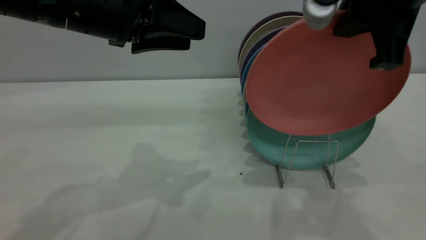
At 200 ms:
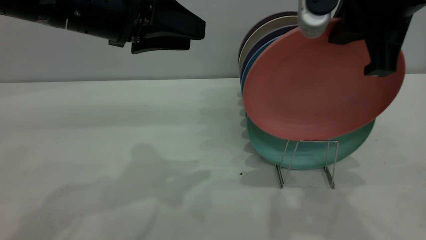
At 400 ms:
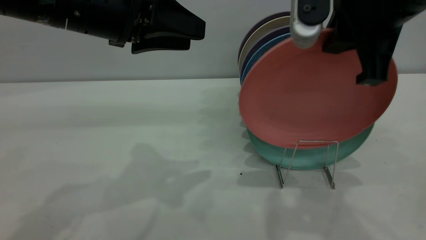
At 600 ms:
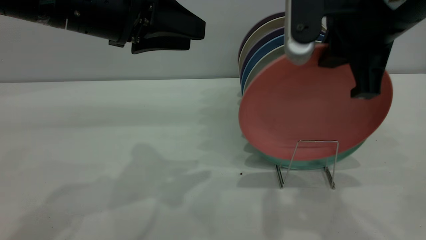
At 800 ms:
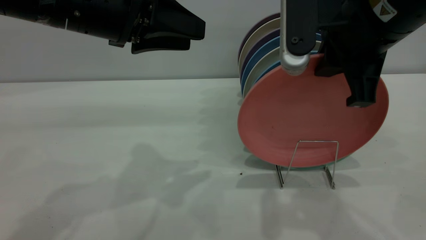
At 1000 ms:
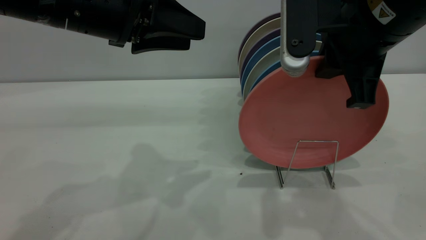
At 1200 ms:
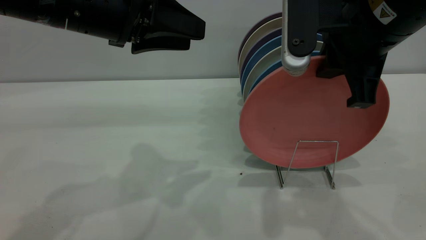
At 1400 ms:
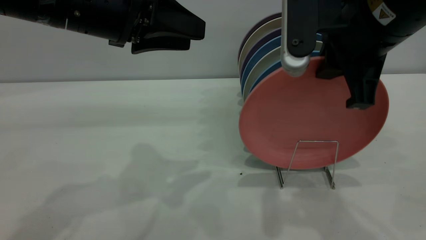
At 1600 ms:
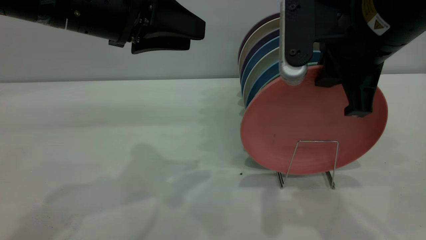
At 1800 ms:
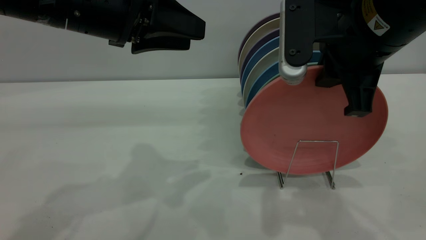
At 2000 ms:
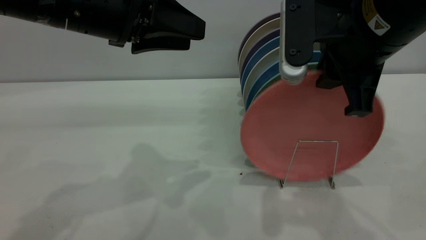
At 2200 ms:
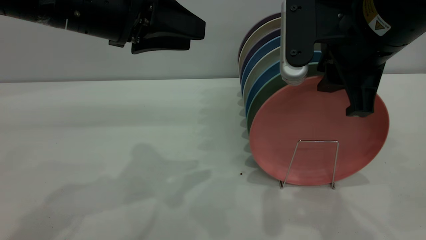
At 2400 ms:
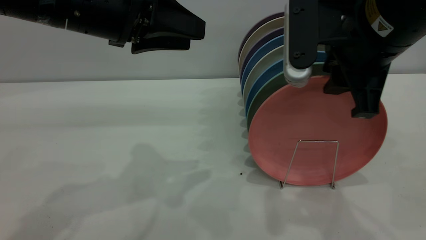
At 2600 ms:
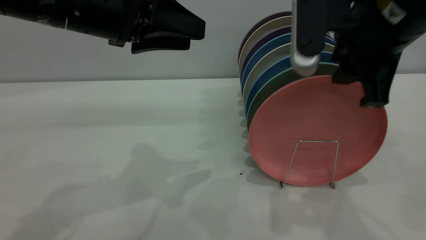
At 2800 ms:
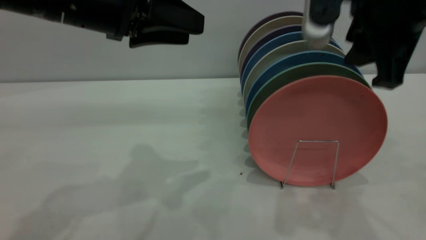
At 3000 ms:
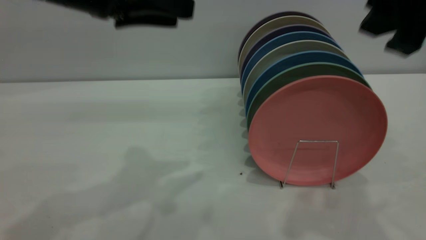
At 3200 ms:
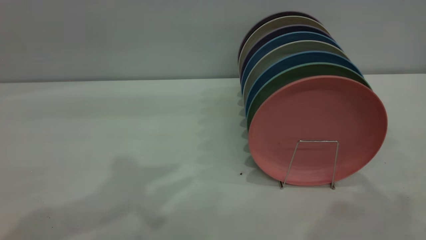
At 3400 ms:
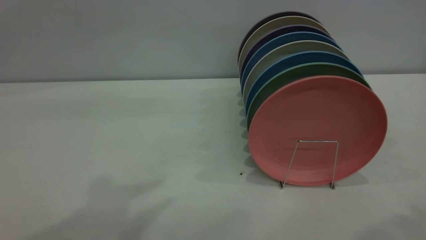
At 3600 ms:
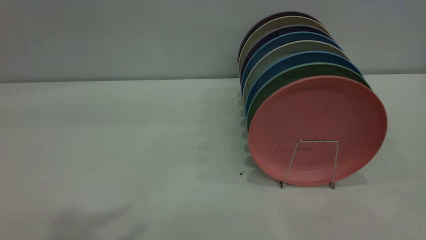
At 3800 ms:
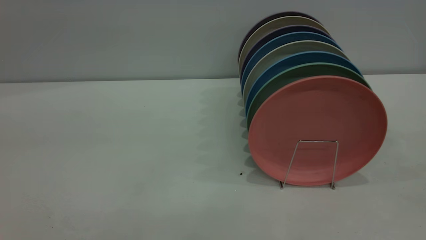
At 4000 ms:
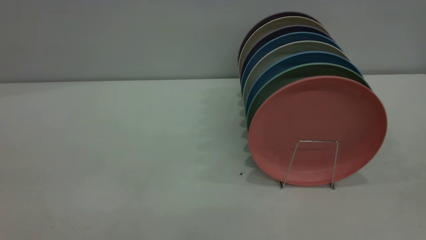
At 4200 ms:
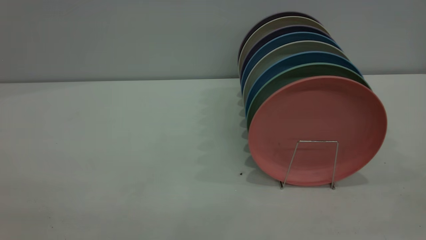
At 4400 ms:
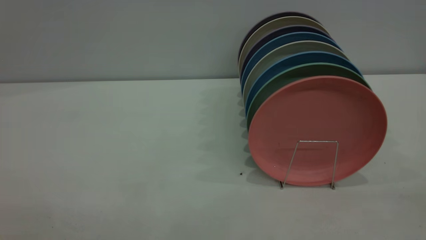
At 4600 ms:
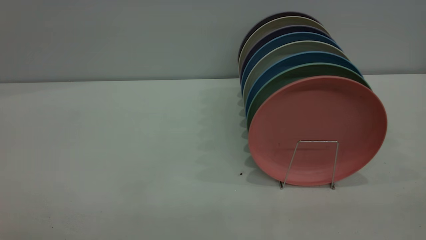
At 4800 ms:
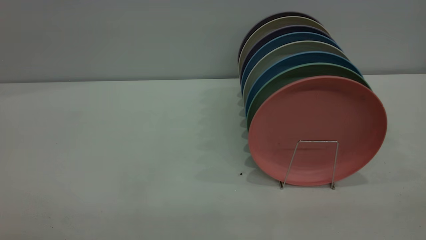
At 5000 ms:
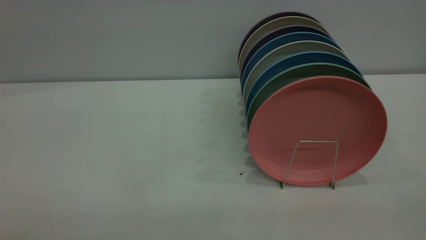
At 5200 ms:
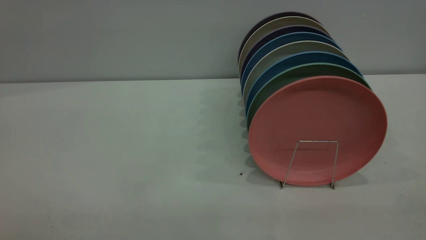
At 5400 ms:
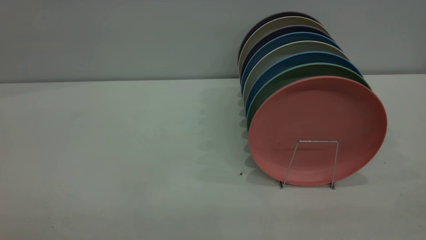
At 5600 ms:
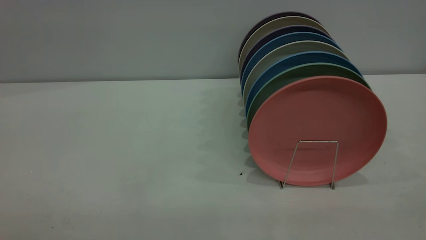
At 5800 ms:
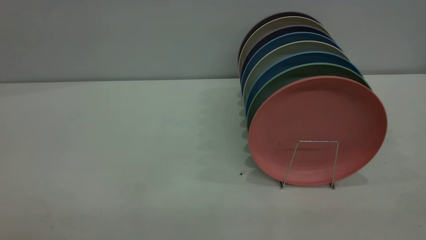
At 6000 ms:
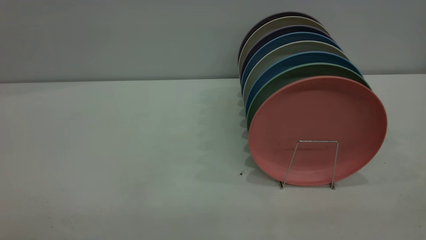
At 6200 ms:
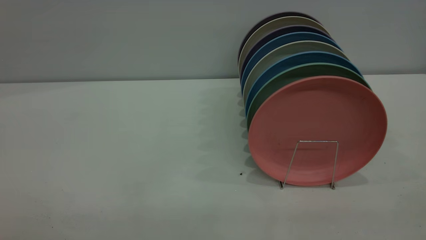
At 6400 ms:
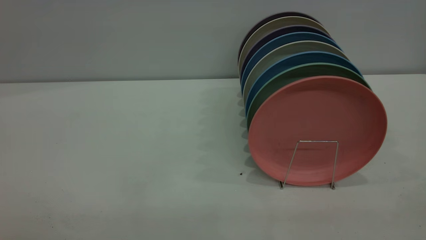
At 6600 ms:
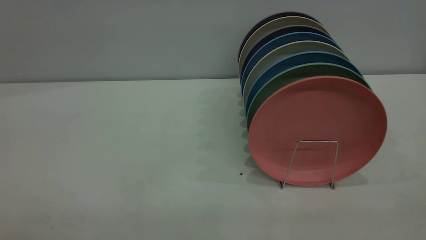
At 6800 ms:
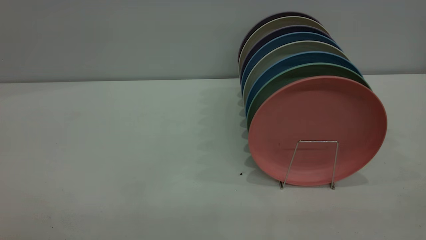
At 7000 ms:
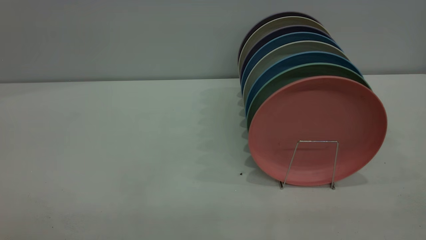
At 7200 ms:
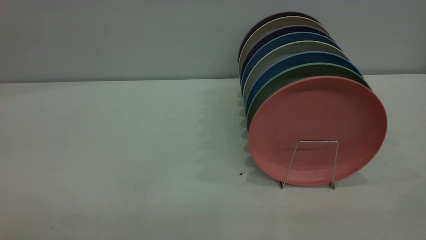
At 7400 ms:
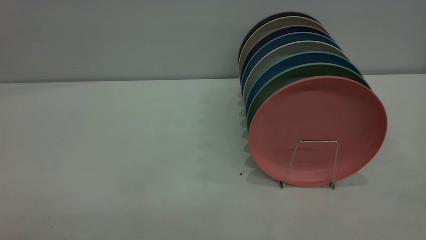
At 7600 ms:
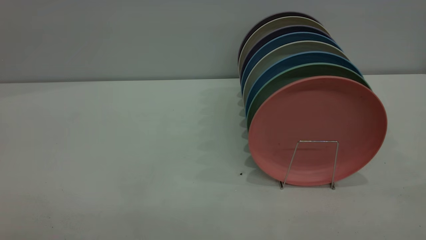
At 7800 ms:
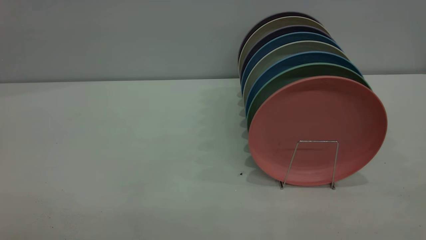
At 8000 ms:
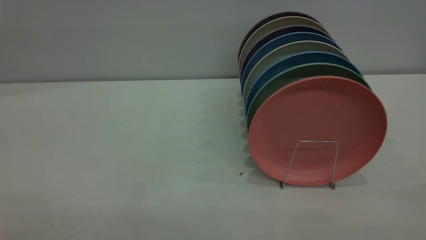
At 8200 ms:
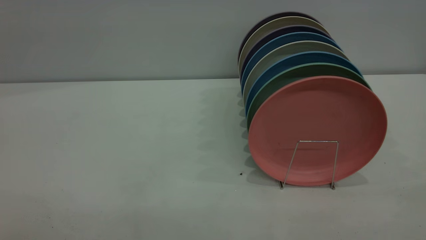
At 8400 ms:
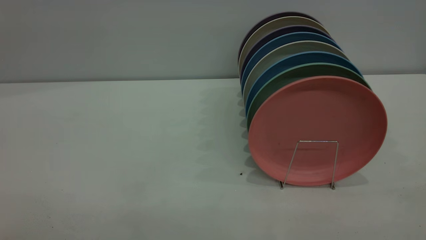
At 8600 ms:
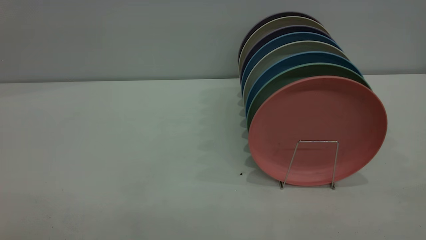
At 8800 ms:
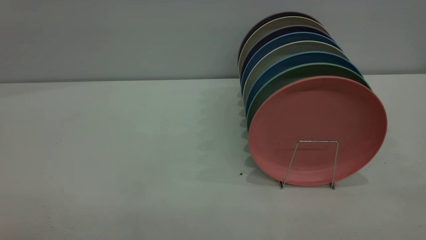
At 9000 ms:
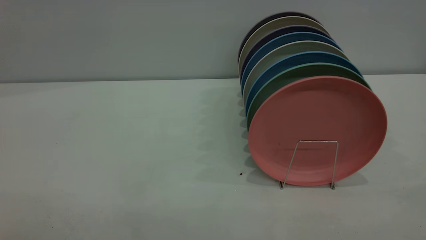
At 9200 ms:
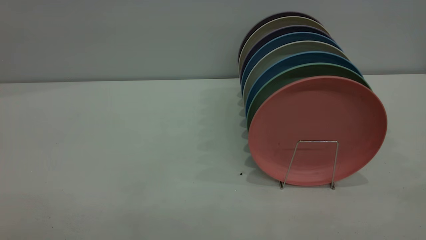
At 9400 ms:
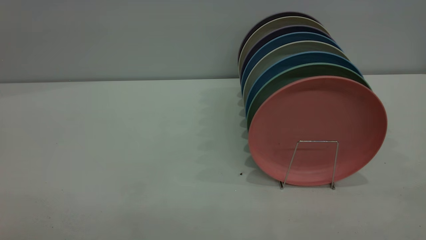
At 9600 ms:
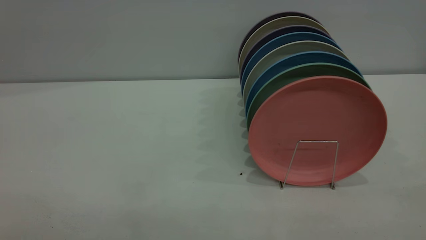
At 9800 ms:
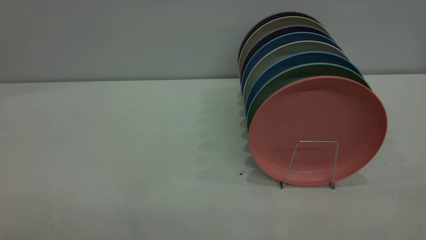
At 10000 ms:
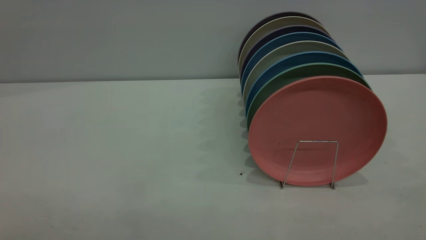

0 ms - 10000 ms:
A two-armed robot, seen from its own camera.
Task of the whole recording: put the plate on the plate rack.
Step, 0 ms - 2800 ms: Place the plate on the shelf.
0 ms - 1400 ms: The right gripper shifts by approximately 5 cm.
1400 ms - 2800 ms: The right gripper opens its fingers.
2800 ms - 4200 ms: The right gripper shifts roughly 25 cm backward and to the right. Meanwhile the left gripper moves backward, some 30 cm.
8600 ms - 10000 ms: The two grippers keep their place.
